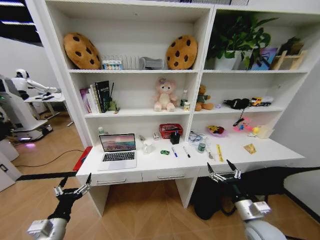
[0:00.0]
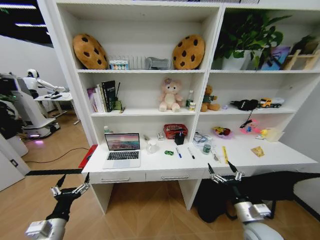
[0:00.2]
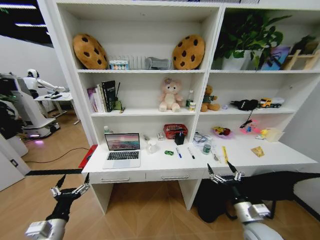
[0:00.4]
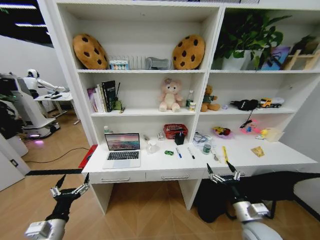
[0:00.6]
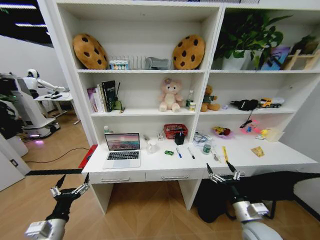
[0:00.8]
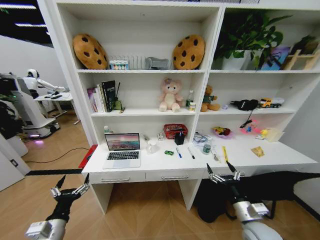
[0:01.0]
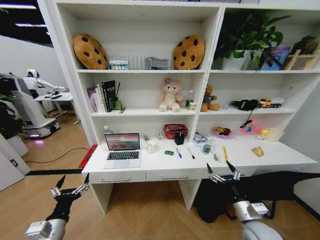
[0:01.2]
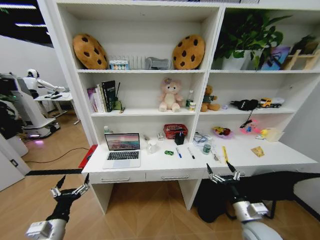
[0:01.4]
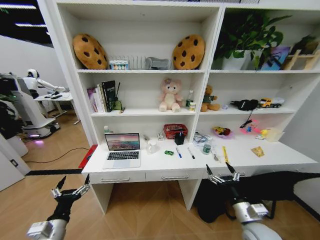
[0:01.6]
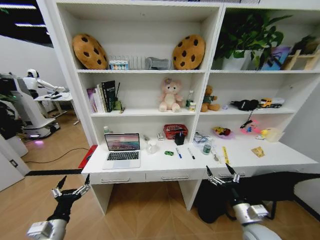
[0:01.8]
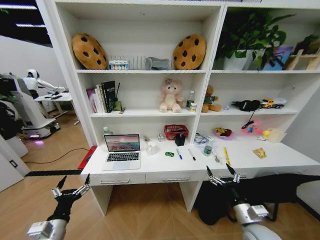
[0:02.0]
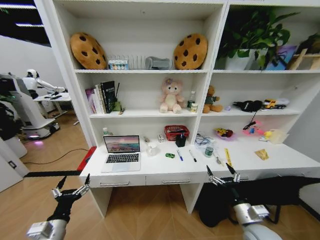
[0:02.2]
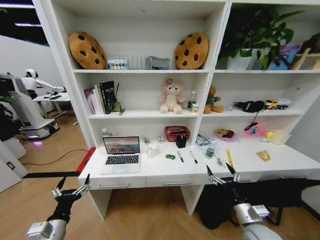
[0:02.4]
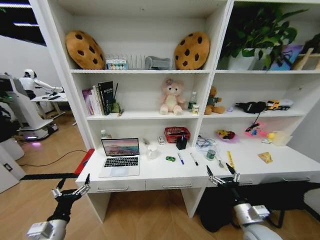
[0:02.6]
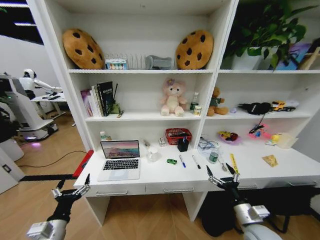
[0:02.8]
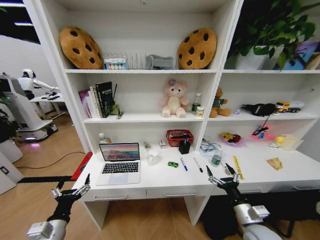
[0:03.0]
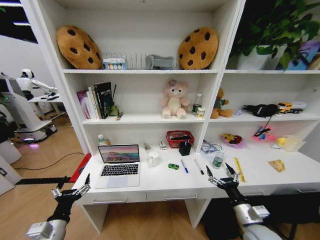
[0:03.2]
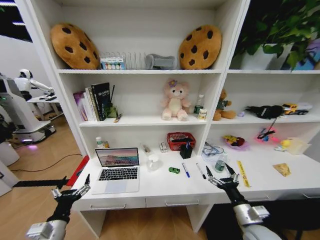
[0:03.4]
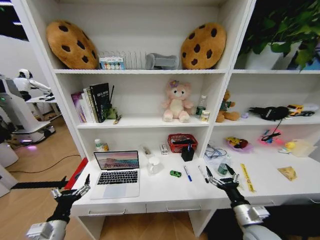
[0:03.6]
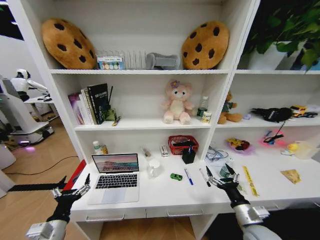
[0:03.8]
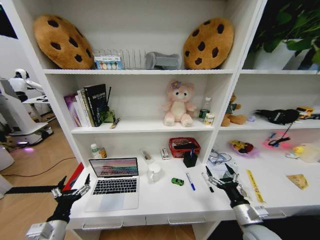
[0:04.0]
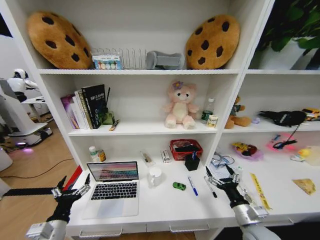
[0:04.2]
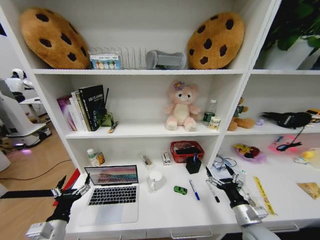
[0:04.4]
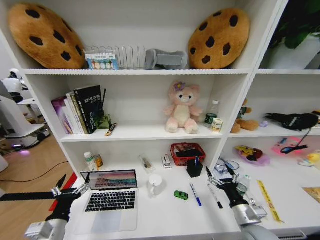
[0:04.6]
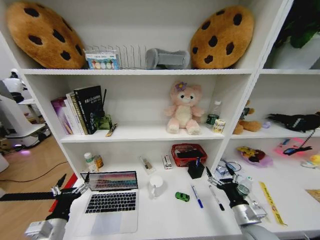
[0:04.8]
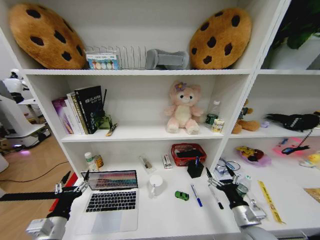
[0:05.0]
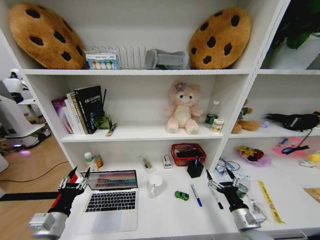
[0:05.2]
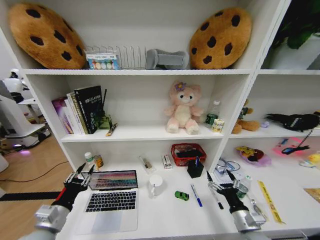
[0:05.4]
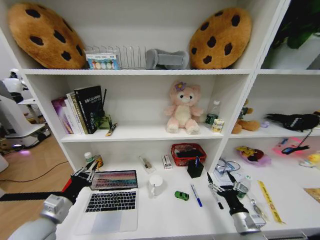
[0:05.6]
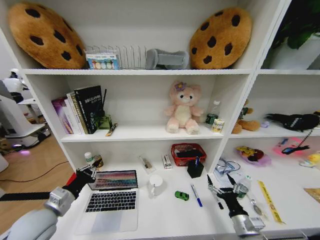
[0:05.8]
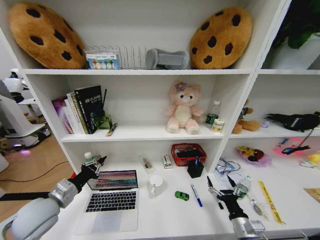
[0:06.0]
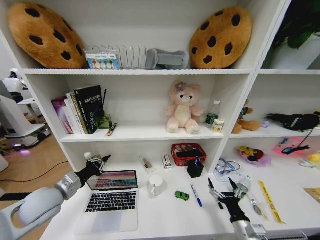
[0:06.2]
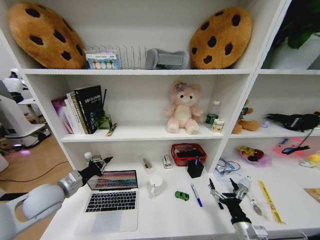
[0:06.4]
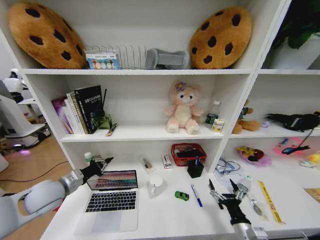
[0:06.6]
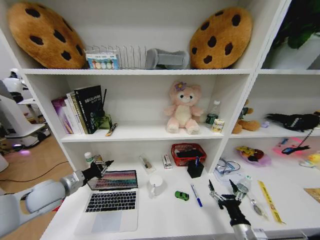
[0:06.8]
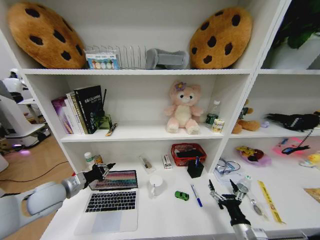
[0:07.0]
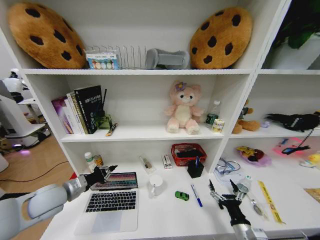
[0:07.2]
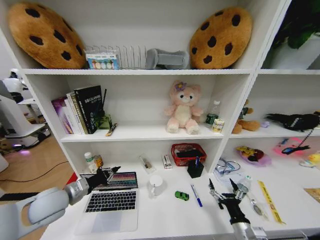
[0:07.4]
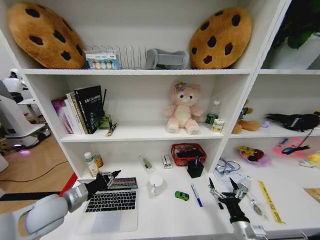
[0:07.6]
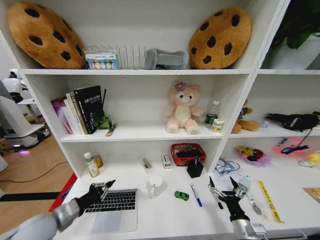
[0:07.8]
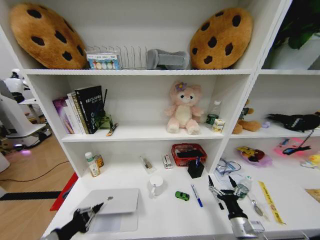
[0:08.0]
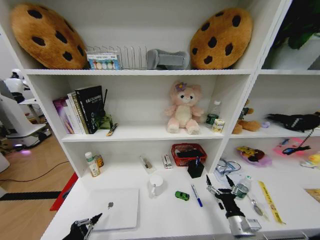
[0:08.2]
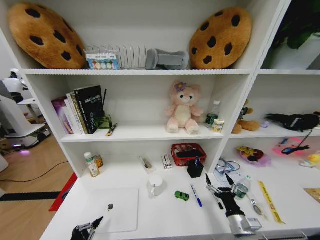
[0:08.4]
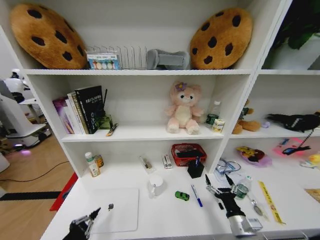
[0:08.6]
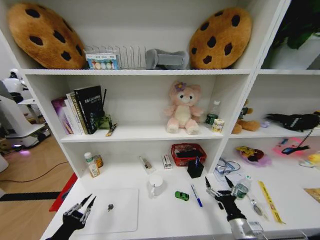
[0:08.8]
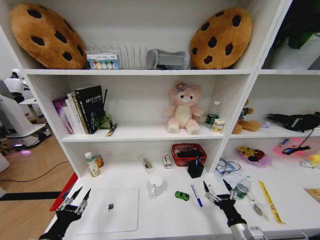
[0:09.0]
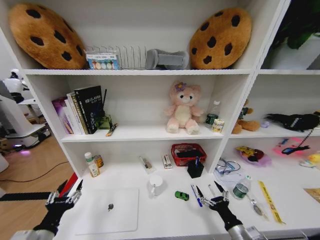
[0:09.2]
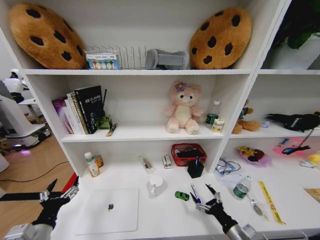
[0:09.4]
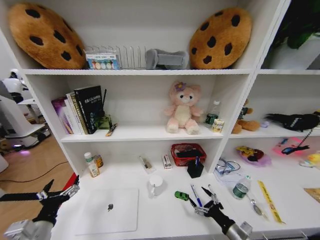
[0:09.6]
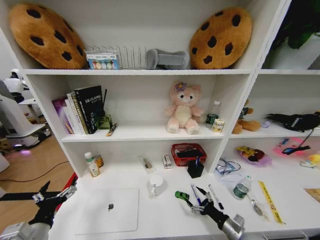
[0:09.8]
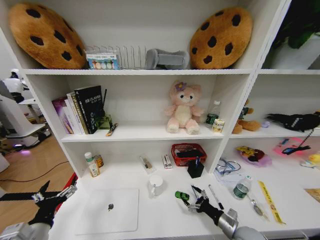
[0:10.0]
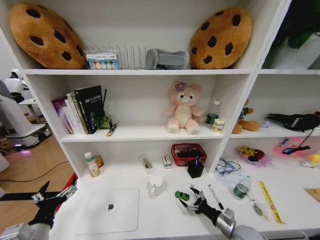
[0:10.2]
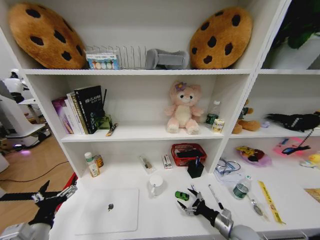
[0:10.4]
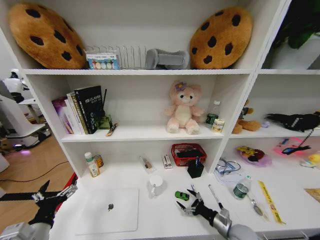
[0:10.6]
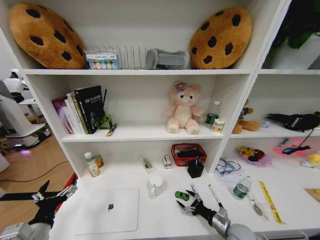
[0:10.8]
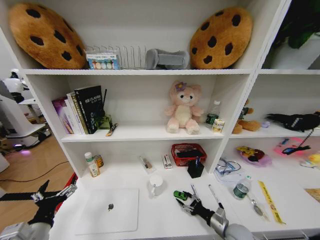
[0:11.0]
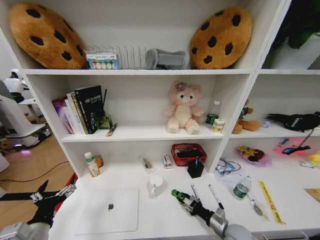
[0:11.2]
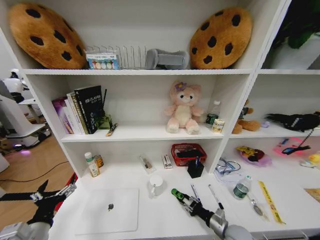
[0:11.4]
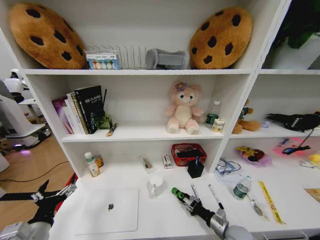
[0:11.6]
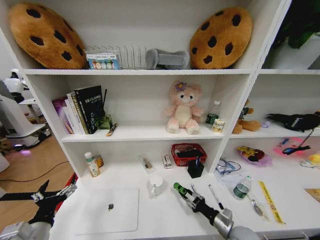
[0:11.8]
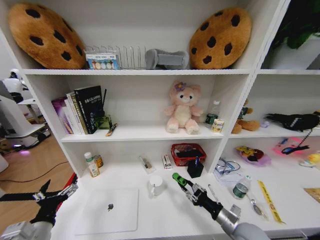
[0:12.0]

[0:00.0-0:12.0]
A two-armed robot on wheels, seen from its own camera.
Task of the whole recording: Organize the objects on the table.
0:04.4 to 0:06.0: The left gripper is displaced forward and upward by some 10 cm, and closes.
0:07.6 to 0:09.0: The left gripper heads backward, covering roughly 15 cm, and opens up.
0:09.0 to 0:10.4: The left gripper opens its fingers. Meanwhile the right gripper travels forward by roughly 5 cm.
0:10.4 to 0:12.0: The right gripper heads upward, covering approximately 10 cm, and closes its fingers.

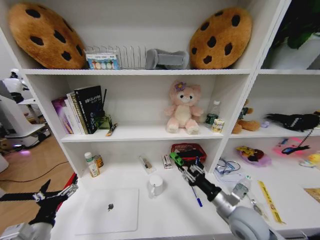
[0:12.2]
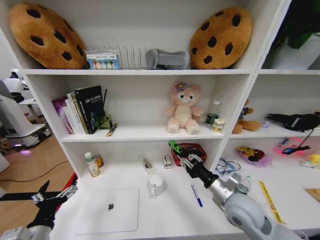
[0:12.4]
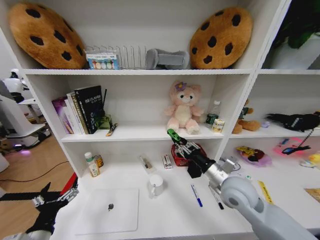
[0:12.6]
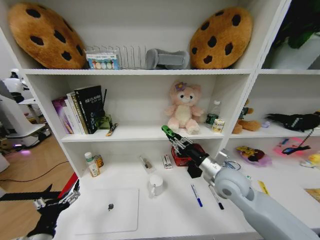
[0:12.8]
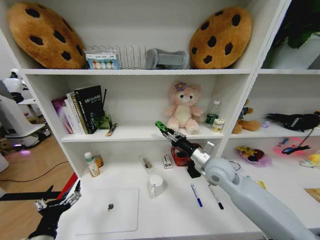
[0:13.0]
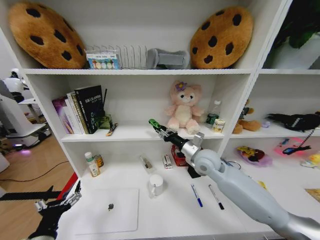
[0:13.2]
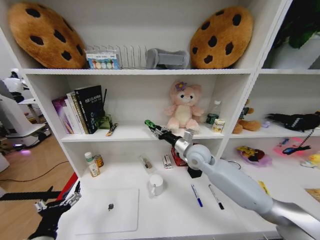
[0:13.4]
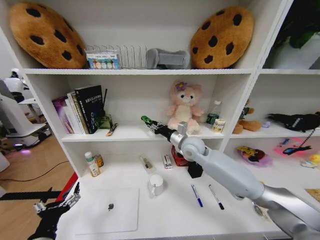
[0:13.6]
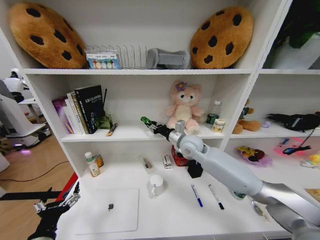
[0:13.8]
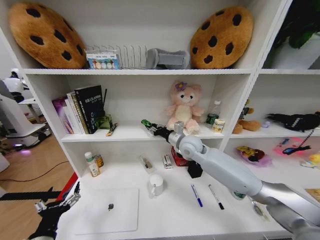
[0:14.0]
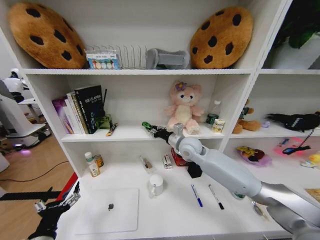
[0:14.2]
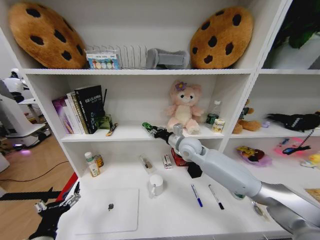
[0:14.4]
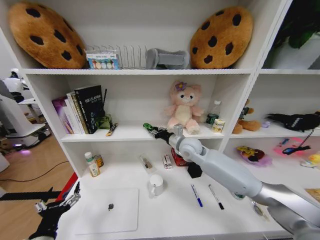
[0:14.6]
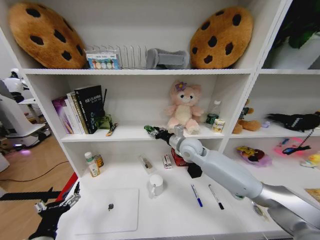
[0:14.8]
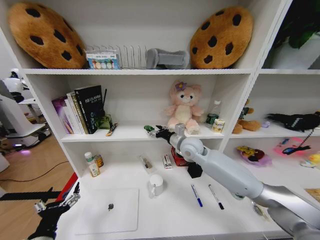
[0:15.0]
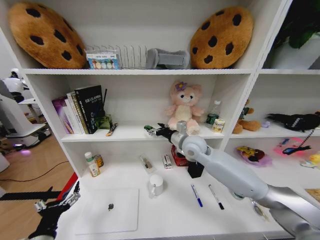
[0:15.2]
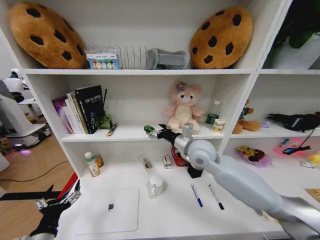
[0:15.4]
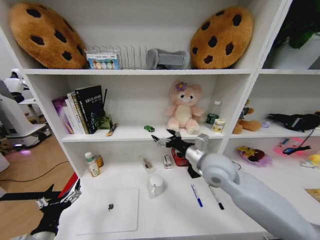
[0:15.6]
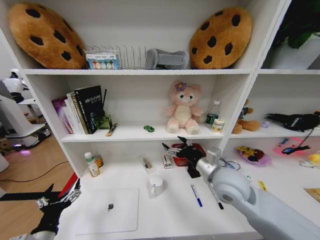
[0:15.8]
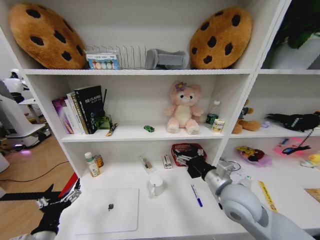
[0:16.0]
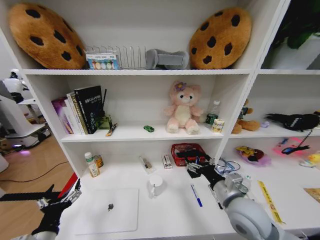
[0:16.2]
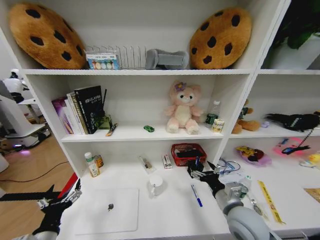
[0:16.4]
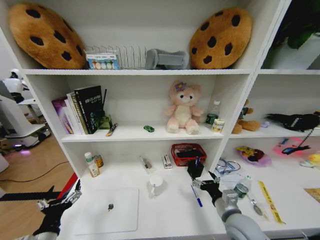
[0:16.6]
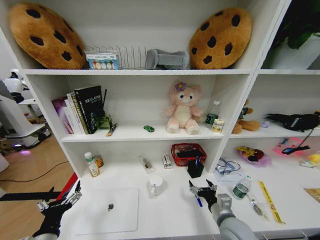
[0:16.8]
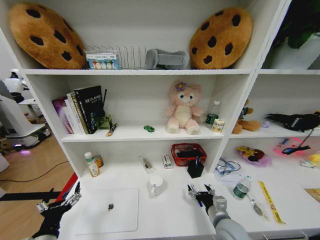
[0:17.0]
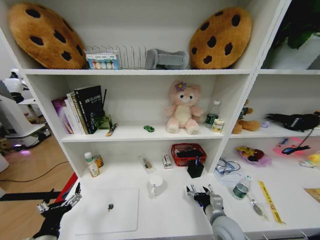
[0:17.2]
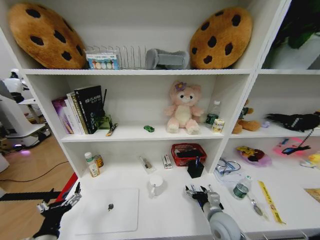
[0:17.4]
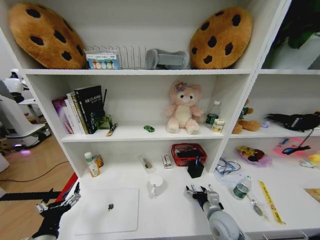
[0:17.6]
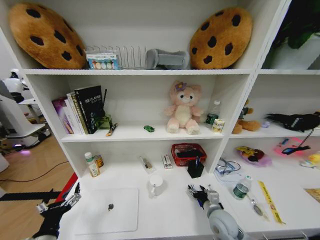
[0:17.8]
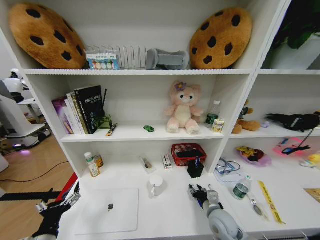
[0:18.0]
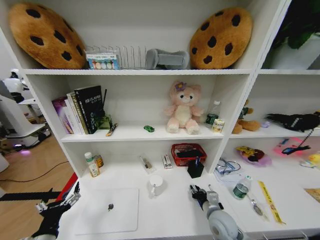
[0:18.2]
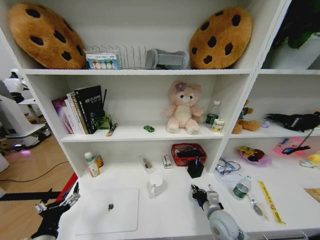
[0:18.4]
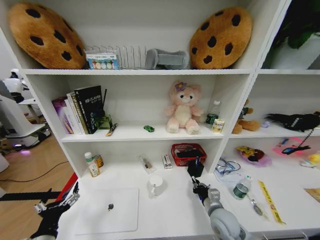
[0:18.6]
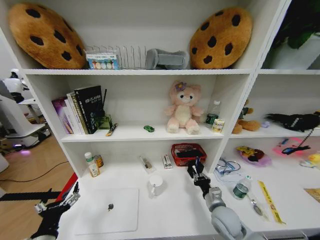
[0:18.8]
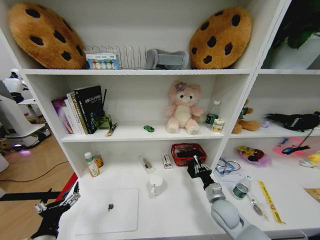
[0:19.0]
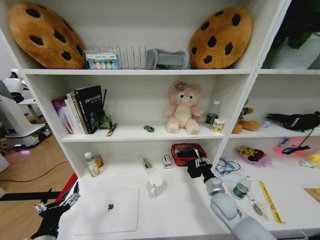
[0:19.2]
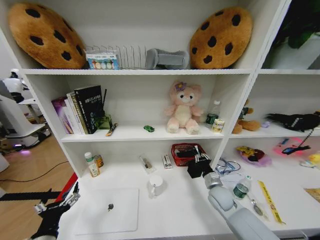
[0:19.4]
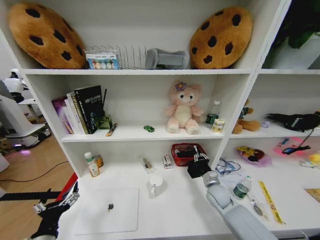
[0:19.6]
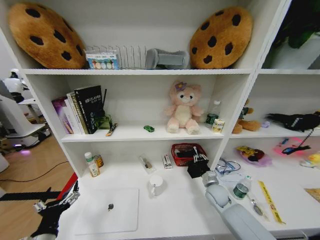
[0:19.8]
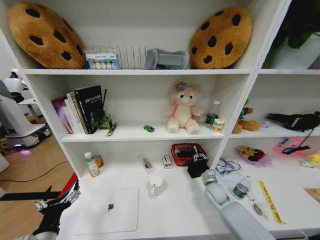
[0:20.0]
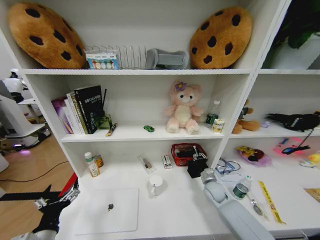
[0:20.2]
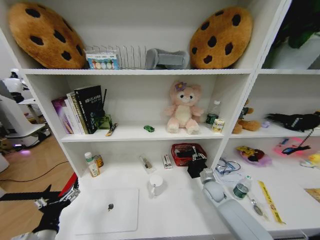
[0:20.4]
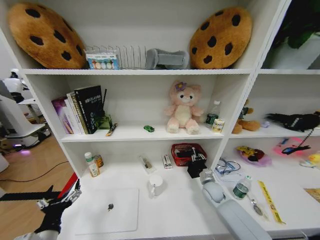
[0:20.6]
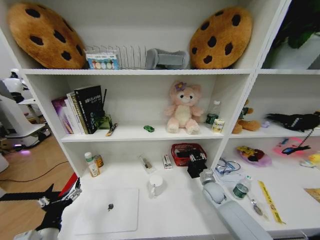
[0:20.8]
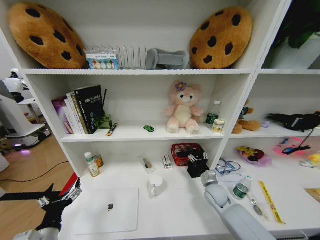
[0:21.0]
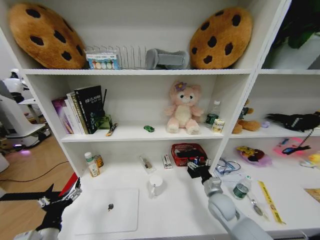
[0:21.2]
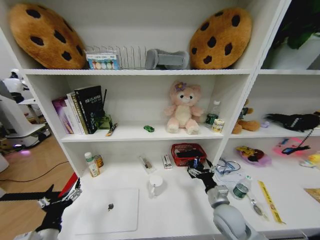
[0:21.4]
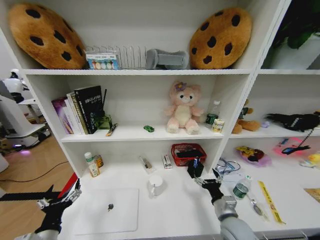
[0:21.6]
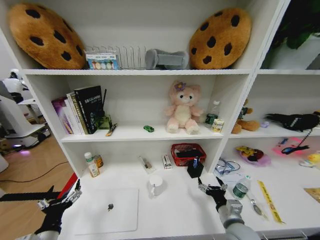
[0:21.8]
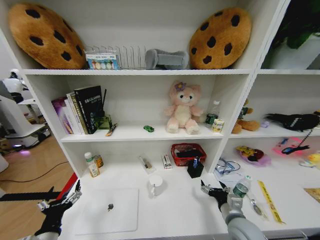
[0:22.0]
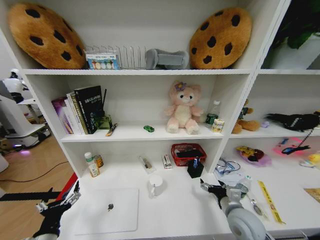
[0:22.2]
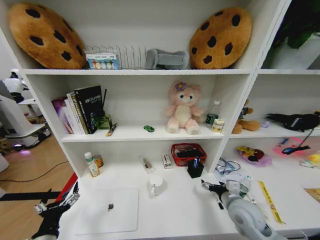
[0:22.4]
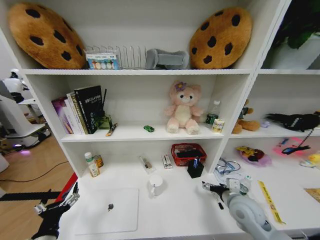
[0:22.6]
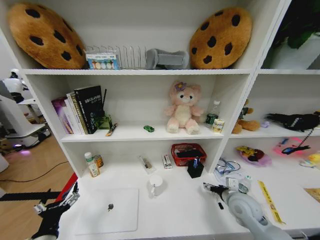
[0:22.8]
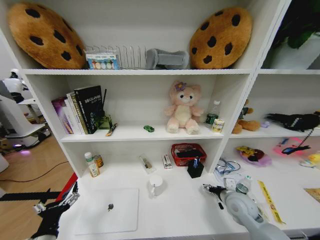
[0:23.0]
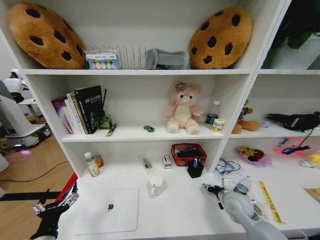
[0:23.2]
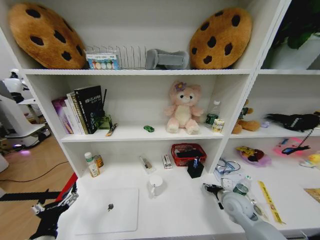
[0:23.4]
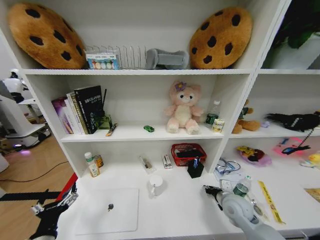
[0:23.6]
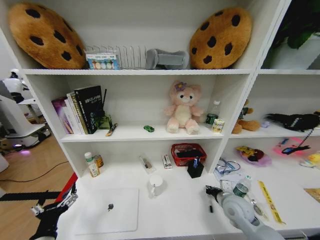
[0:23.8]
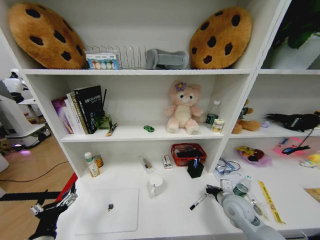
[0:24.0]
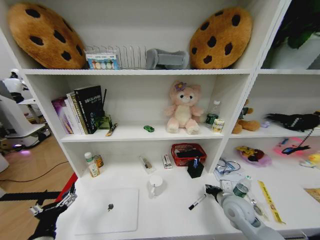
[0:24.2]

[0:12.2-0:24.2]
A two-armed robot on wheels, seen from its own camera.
Task of the whole recording: Organize the objects on the table.
0:12.2 to 0:13.8: The right gripper is displaced forward, upward and to the left by about 30 cm.
0:13.8 to 0:15.2: The right gripper opens.
0:15.2 to 0:16.6: The right gripper is displaced backward, downward and to the right by roughly 30 cm.
0:16.6 to 0:18.2: The right gripper travels downward by about 10 cm, and closes up.
0:18.2 to 0:19.8: The right gripper is displaced forward by some 10 cm.
0:19.8 to 0:21.2: The right gripper changes place by some 5 cm, and opens its fingers.
0:21.2 to 0:22.6: The right gripper shifts about 10 cm upward and backward.
0:22.6 to 0:24.2: The right gripper closes its fingers.
